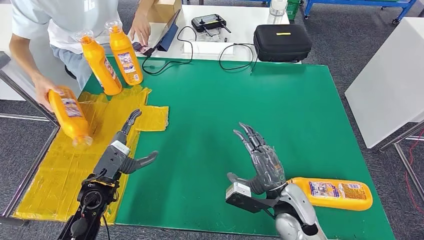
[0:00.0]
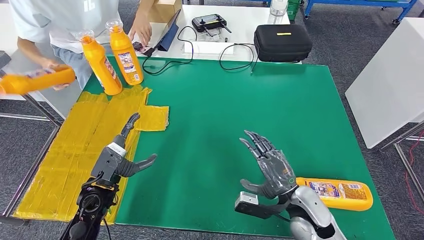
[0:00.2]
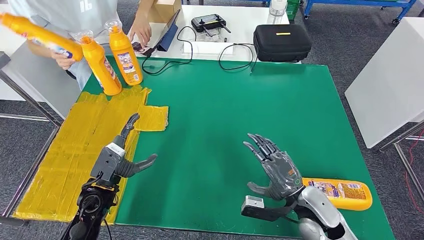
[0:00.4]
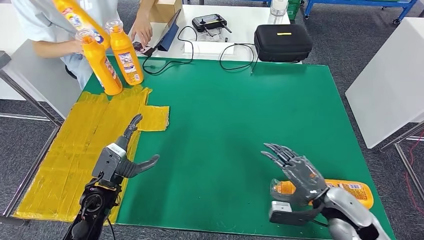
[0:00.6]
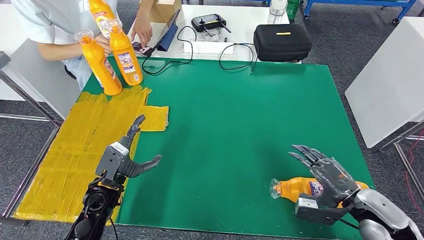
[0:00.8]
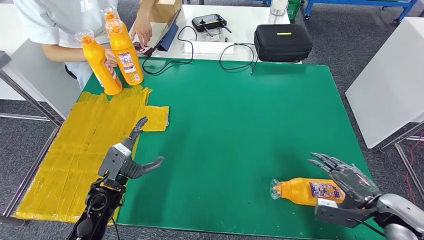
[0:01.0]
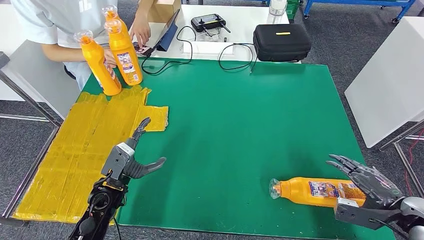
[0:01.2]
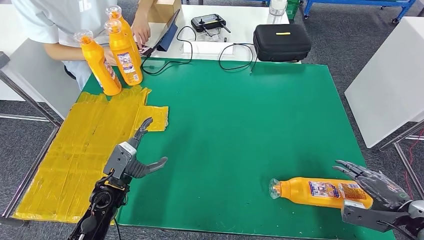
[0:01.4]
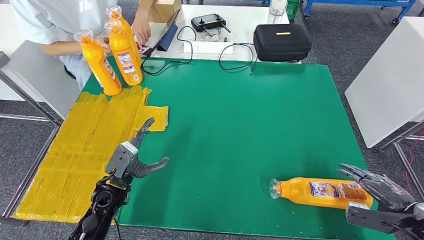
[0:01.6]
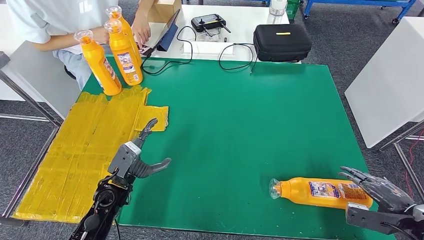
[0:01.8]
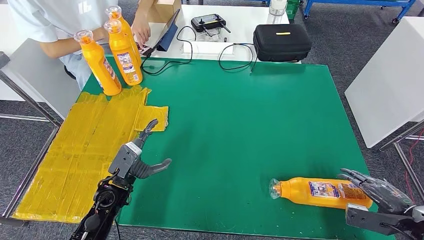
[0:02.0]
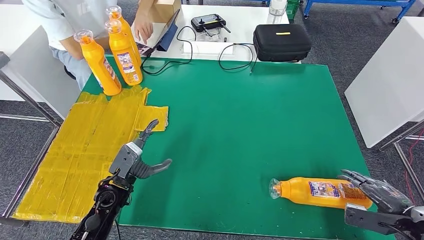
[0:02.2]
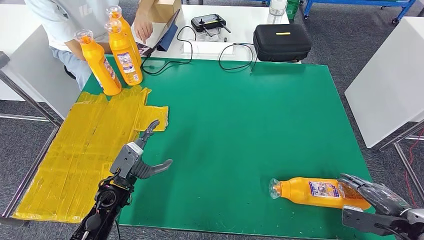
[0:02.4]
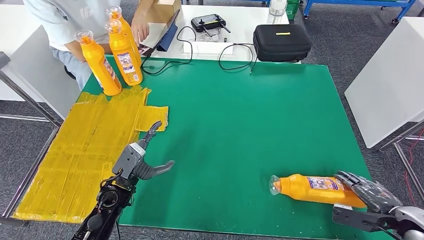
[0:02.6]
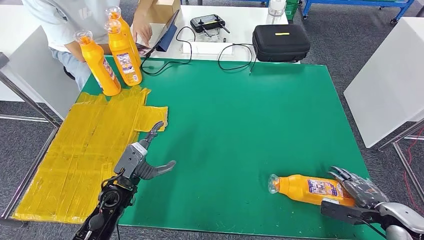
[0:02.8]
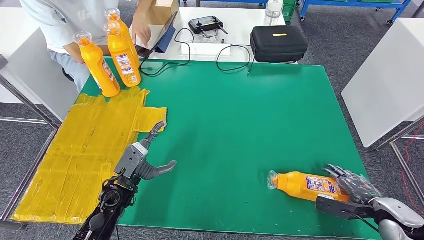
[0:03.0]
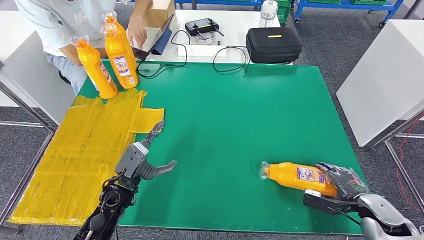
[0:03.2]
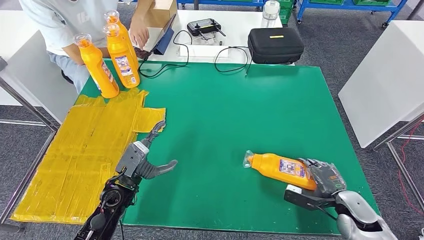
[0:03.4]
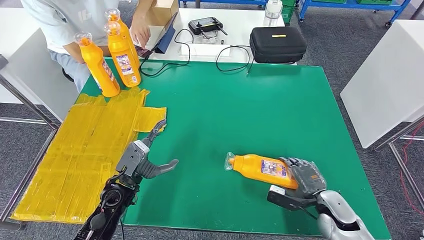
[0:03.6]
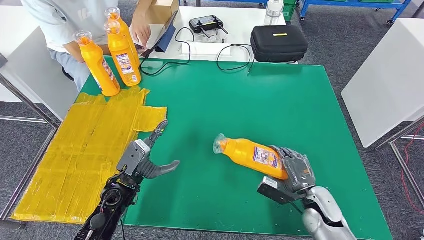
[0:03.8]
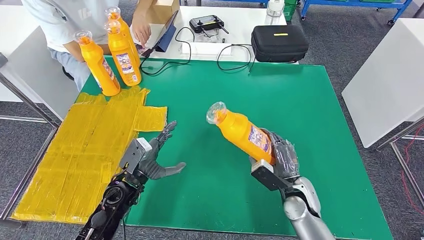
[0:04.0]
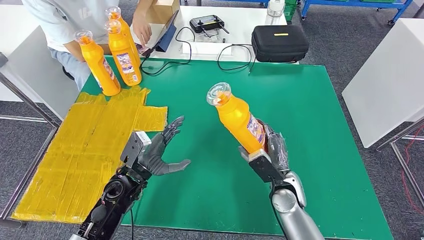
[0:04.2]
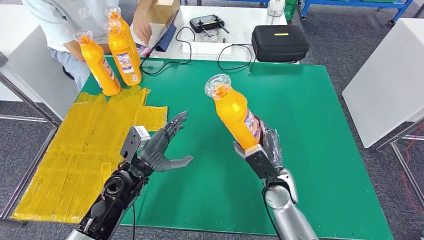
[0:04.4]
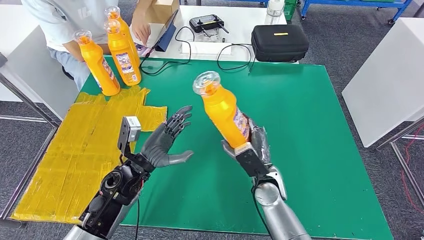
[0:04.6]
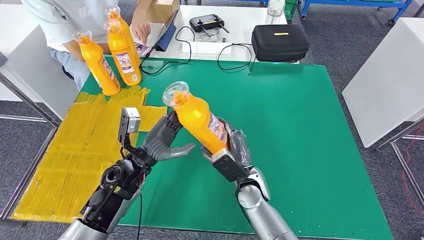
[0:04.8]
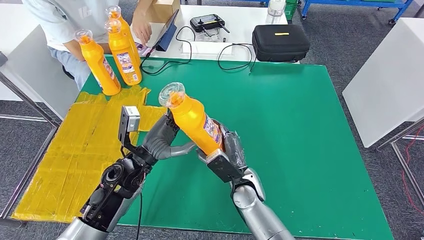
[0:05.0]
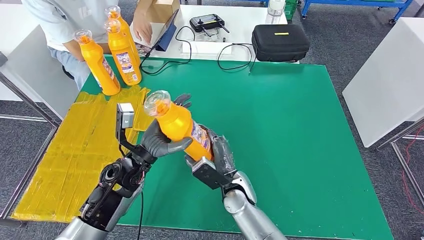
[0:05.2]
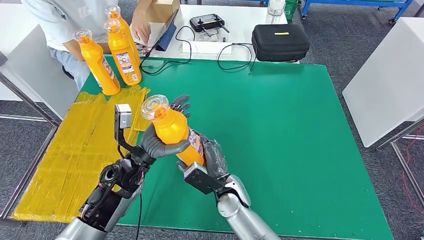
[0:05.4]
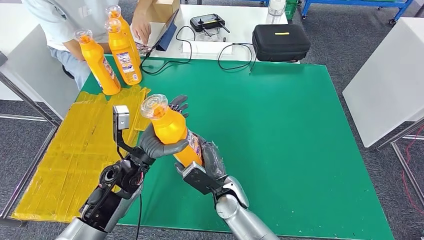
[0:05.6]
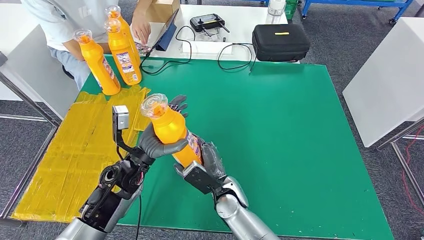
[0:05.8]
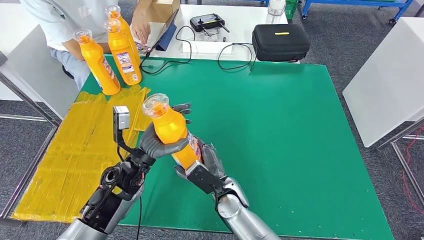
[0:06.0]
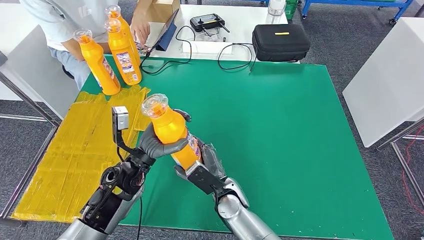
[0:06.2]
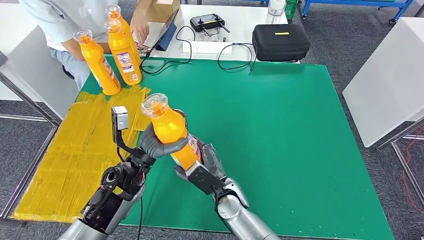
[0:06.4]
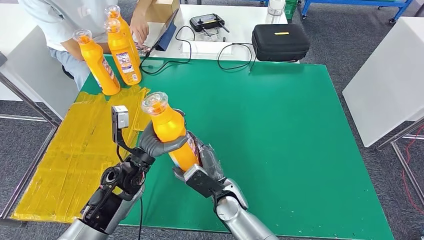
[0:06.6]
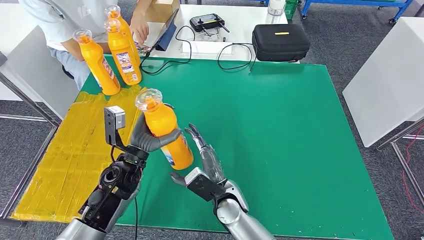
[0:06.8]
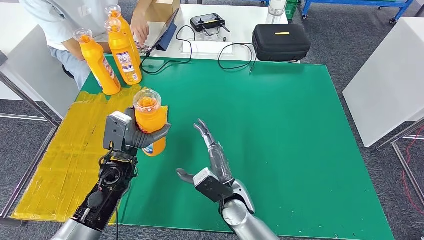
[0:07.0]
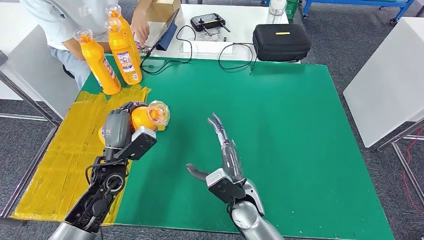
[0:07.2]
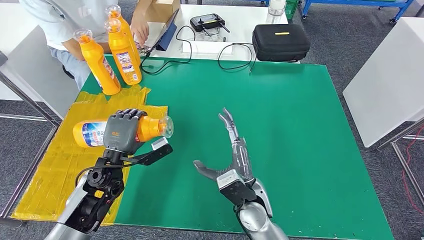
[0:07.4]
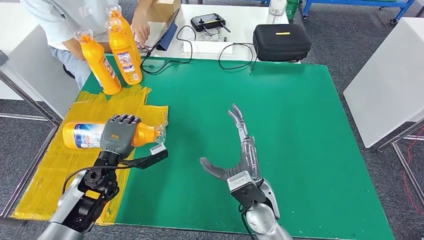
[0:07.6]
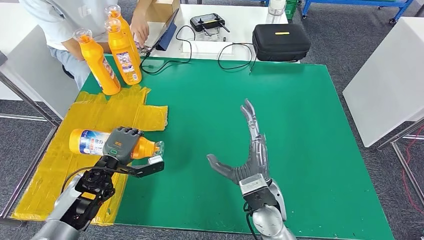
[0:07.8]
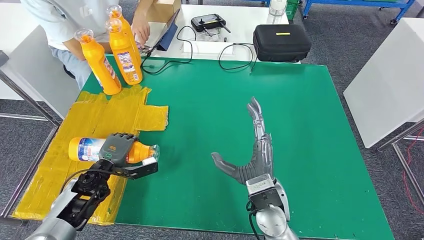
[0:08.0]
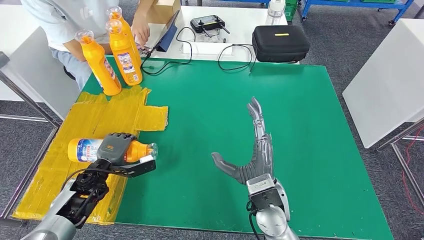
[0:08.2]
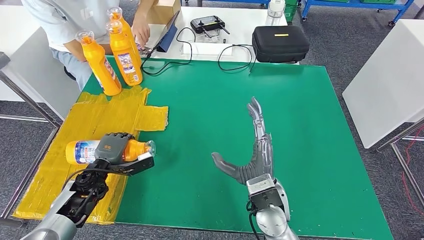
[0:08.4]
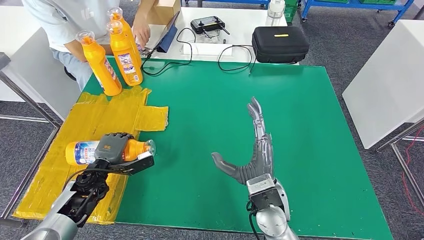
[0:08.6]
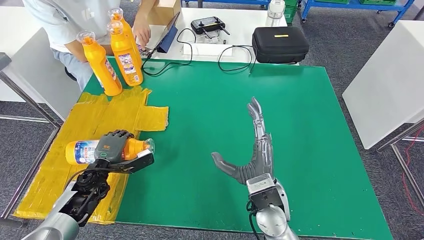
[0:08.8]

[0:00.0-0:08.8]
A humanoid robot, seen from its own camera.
Step, 0:00.0 to 0:05.2: Pick up the fast-moving consumer goods bottle from the table.
Step, 0:05.6 to 0:08.8: Flip the fast-moving consumer goods bottle to the front side.
0:00.0 to 0:01.4: The right hand goes some 30 cm to the right.
0:04.4 to 0:05.8: The right hand shifts about 15 cm to the left.
0:05.8 to 0:07.4: The left hand moves to the left, some 5 cm; the right hand heads upward and to the right, covering some 5 cm.
